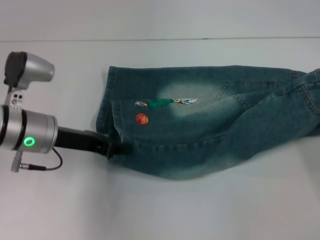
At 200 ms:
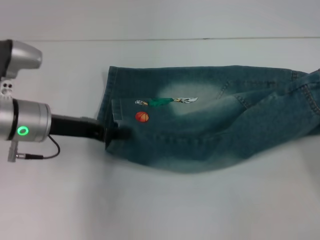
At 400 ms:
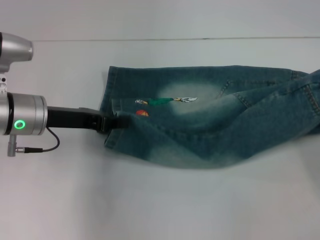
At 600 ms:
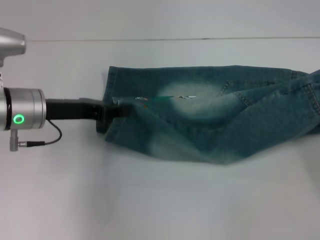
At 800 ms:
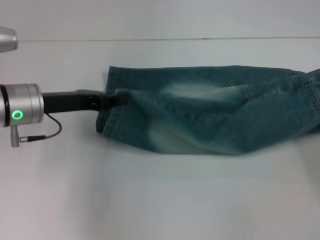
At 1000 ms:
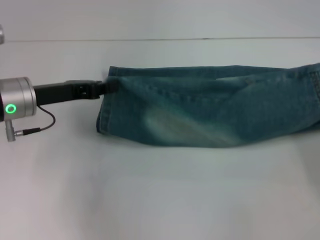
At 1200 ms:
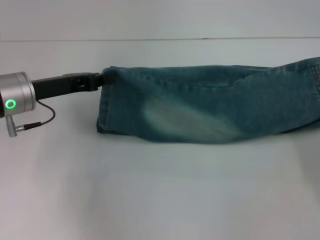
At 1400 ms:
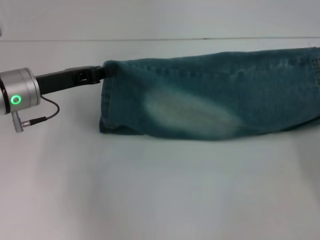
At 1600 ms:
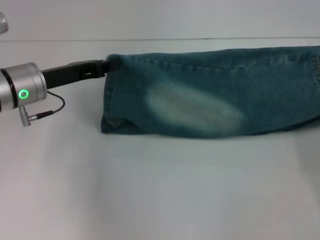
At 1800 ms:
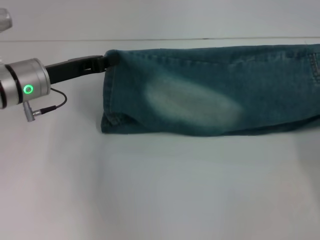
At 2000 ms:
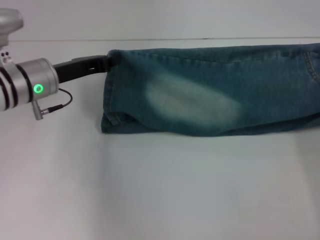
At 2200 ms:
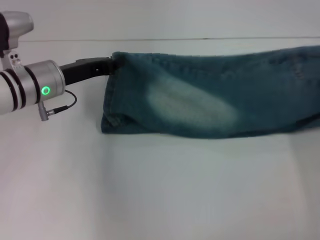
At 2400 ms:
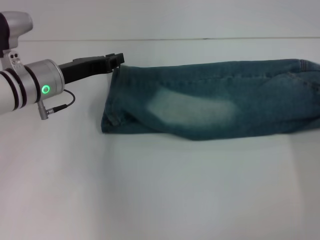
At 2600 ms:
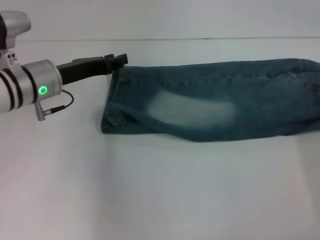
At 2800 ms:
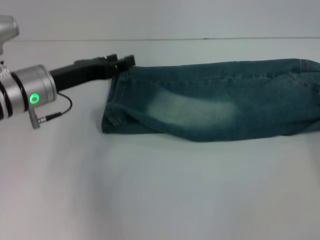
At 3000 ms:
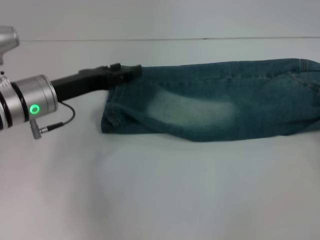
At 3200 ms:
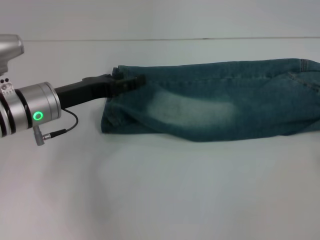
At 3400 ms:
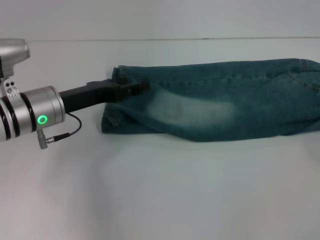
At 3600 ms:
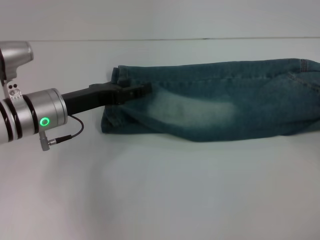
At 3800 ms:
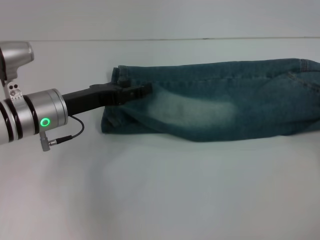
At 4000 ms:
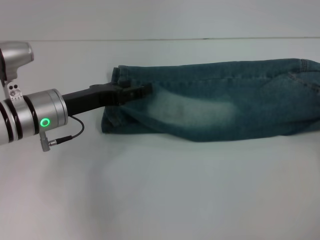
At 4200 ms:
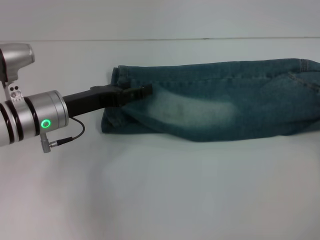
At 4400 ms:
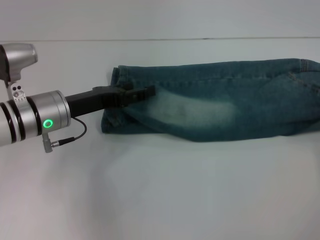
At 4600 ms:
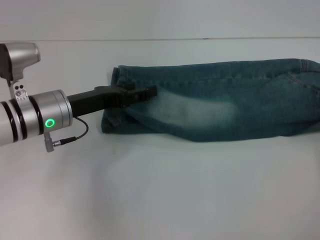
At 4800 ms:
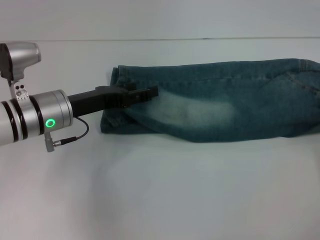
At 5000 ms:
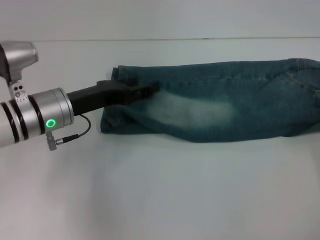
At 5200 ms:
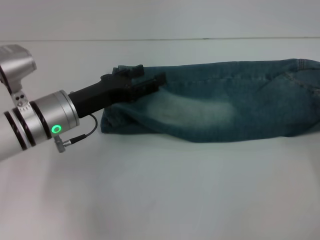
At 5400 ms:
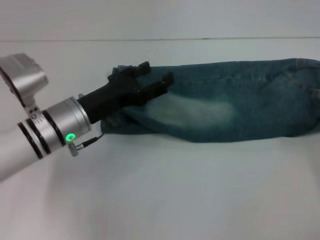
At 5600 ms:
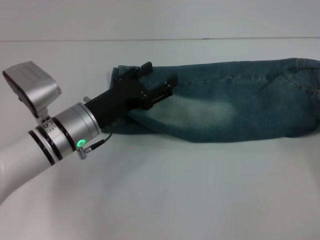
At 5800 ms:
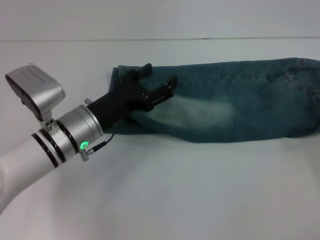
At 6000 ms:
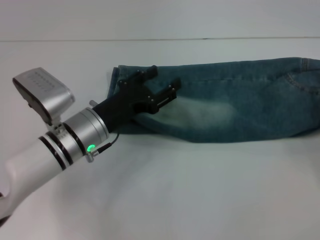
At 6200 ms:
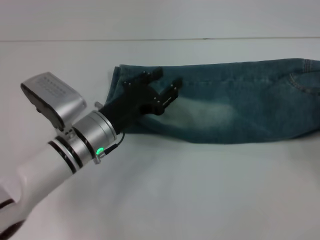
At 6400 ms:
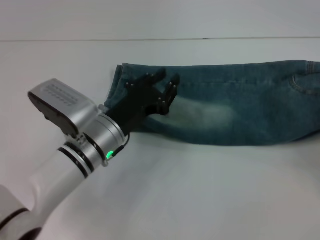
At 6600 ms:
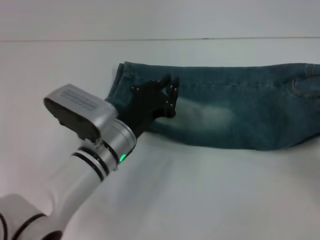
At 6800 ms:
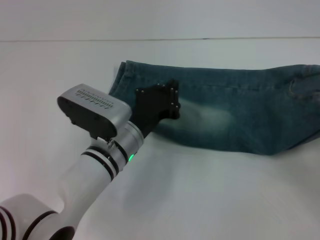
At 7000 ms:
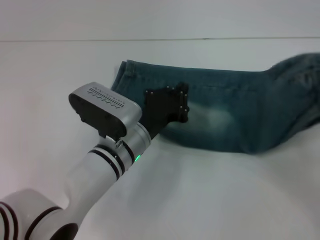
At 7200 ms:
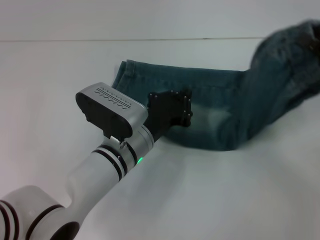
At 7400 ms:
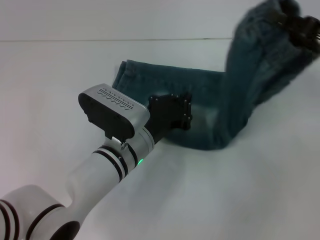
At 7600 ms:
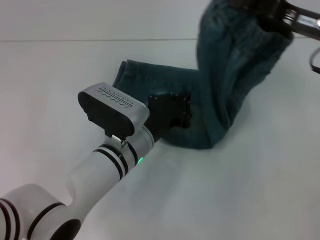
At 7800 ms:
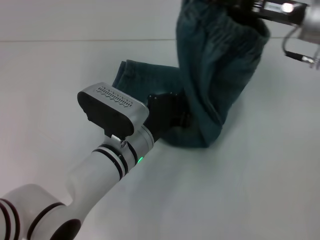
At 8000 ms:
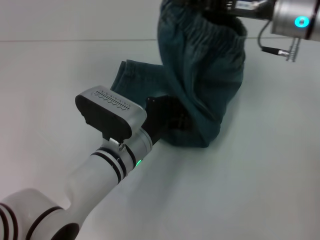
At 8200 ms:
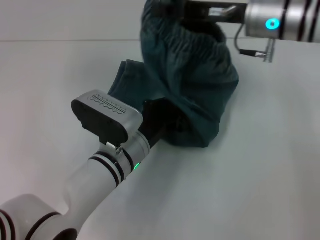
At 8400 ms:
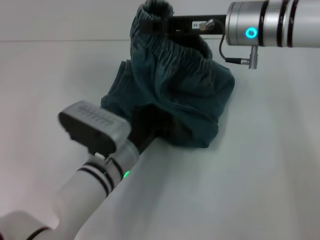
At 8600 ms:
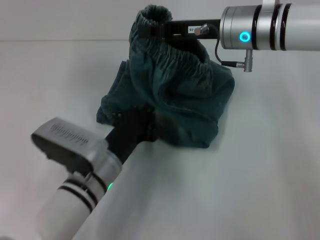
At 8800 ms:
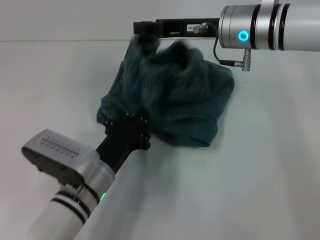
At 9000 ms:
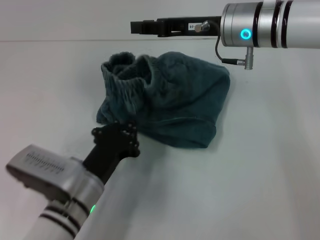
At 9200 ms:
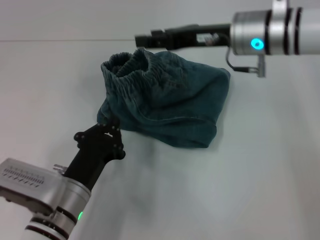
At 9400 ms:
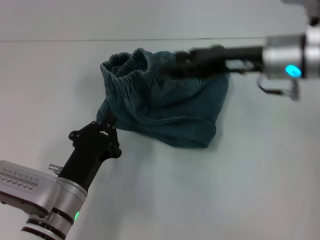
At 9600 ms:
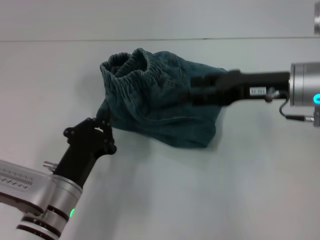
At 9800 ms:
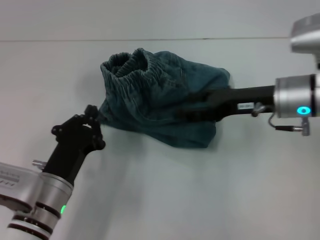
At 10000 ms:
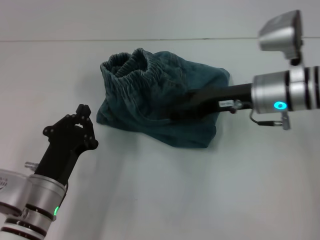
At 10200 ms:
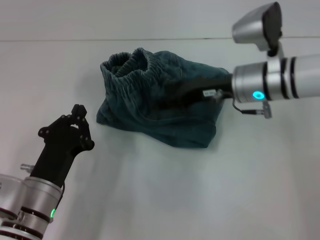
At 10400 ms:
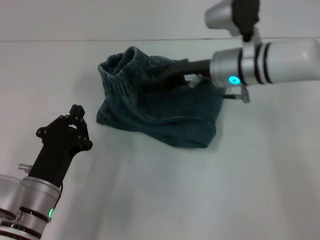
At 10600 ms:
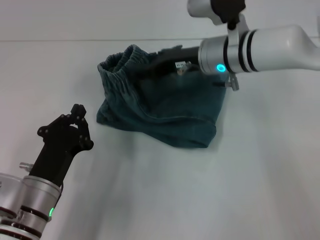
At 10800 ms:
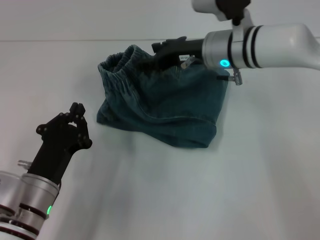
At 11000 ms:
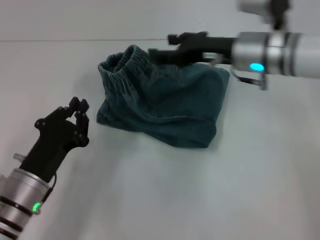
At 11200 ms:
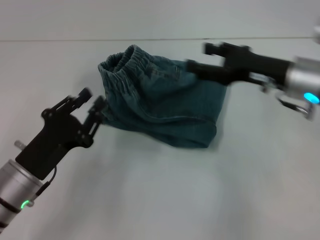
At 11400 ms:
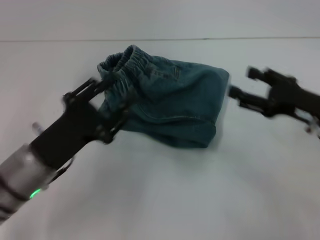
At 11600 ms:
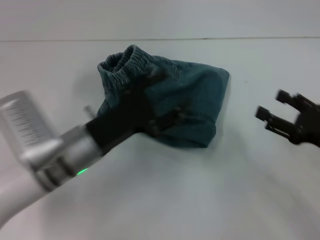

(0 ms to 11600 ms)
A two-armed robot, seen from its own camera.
Step, 0 ms - 2400 ms: Fold upward with your right hand.
Step, 2600 ms - 5600 ms: Grab the waistband with your right hand.
Step, 5800 ms - 8200 ms: Press the middle of the pants with your left hand.
Step, 8400 ms - 9000 ms: Fold to the left with your right hand.
1400 ms - 2800 ms: The right gripper opens. The left gripper opens up.
2800 ms - 4400 ms: The right gripper opens up; the left gripper opens its fingers.
4400 ms - 5800 ms: The left gripper shifts by roughly 5 cm; the right gripper closes up.
5800 ms - 7200 ms: The right gripper goes approximately 10 cm upward and to the left. Meanwhile the left gripper moves to the right, about 10 cm, and closes its fingers.
7200 ms - 8800 ms: The right gripper travels to the left and forward by roughly 25 cm. The left gripper goes roughly 5 cm to the left and backward.
8800 ms - 10200 ms: The left gripper shifts about 5 cm to the left; the right gripper goes about 5 cm downward, goes to the right and returns, approximately 10 cm each way, and opens its fingers.
10200 ms - 11600 ms: The right gripper goes some 20 cm to the right and backward, while the left gripper moves forward and upward, approximately 10 cm, and opens its fingers.

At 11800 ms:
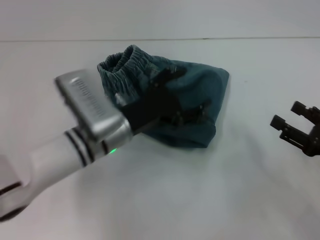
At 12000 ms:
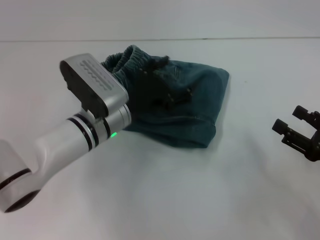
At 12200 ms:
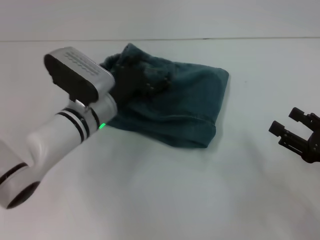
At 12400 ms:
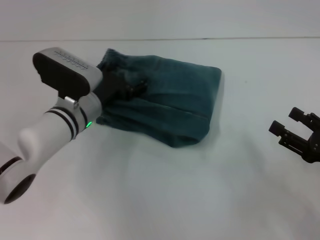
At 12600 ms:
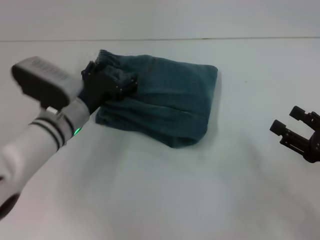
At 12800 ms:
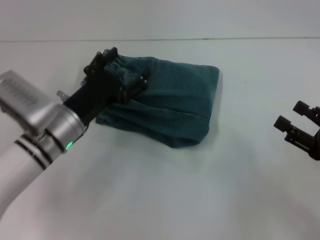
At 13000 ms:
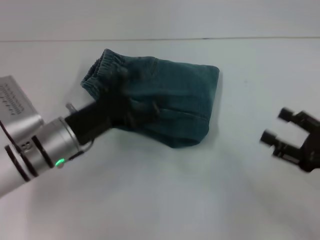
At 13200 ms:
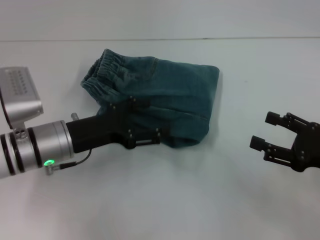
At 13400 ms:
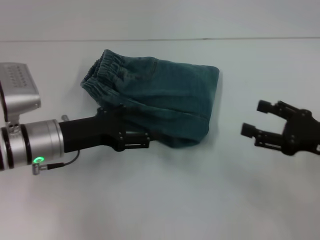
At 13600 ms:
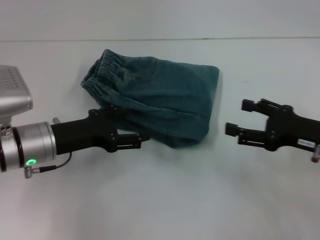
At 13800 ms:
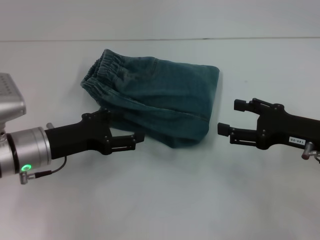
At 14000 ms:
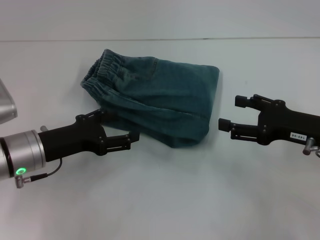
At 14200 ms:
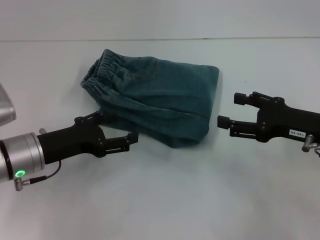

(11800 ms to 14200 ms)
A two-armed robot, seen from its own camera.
11800 ms - 13000 ms: The left gripper goes roughly 5 cm to the left.
13000 ms - 14200 ms: The left gripper moves some 5 cm. Meanwhile the right gripper travels forward by approximately 5 cm.
